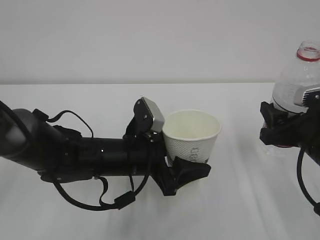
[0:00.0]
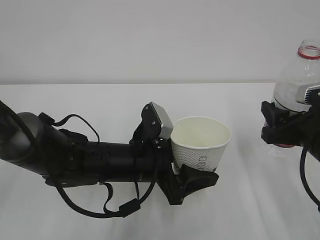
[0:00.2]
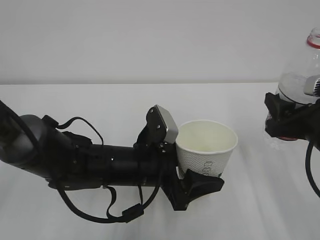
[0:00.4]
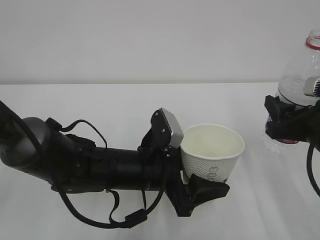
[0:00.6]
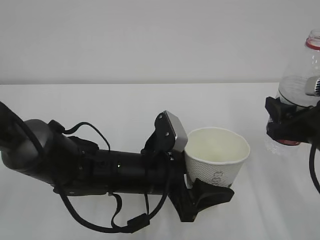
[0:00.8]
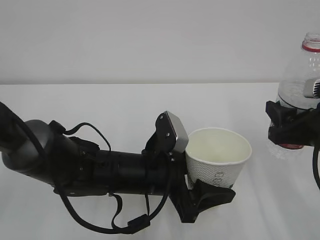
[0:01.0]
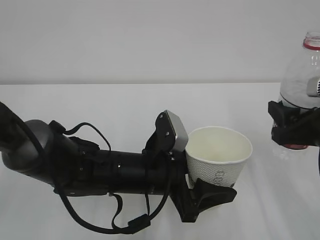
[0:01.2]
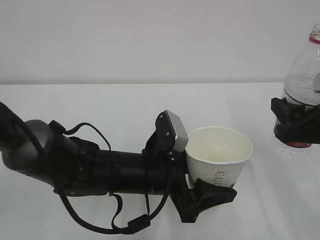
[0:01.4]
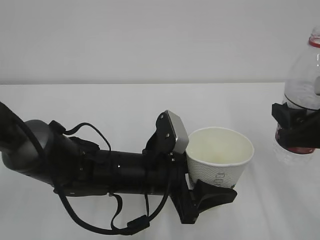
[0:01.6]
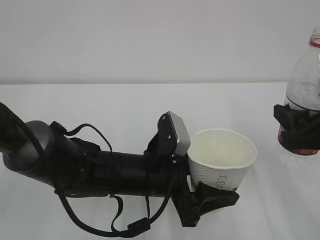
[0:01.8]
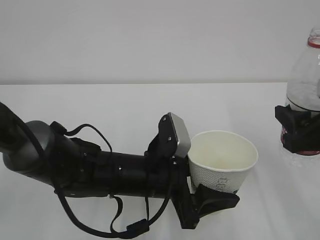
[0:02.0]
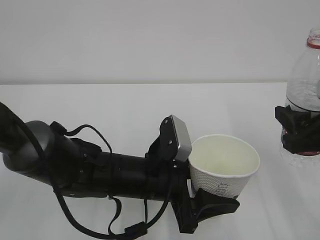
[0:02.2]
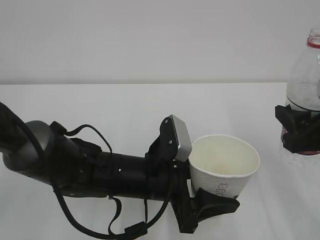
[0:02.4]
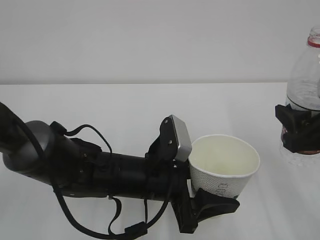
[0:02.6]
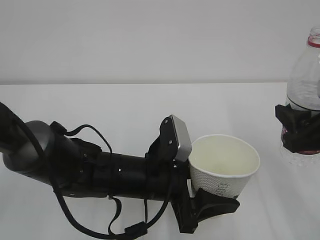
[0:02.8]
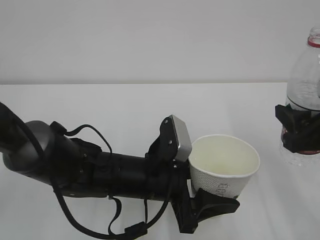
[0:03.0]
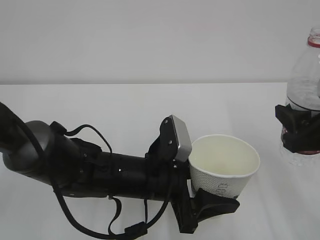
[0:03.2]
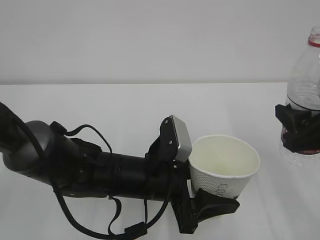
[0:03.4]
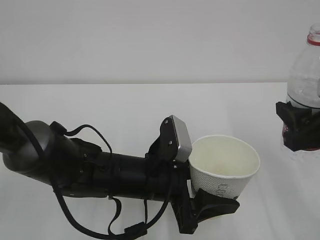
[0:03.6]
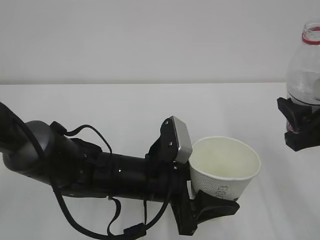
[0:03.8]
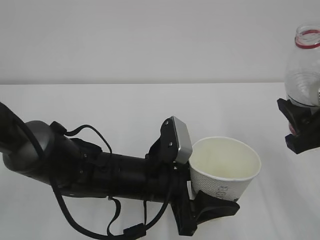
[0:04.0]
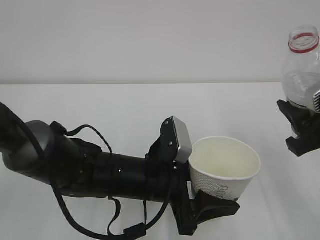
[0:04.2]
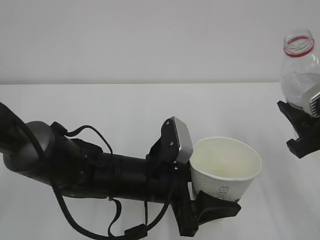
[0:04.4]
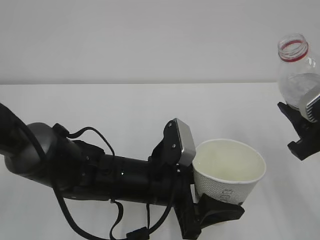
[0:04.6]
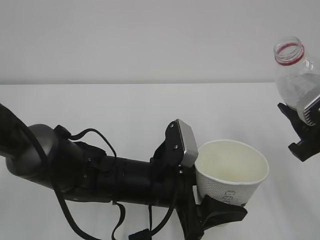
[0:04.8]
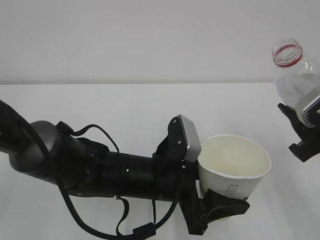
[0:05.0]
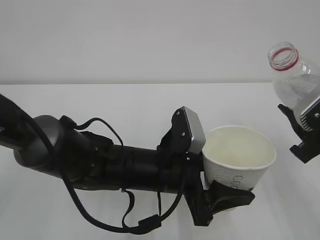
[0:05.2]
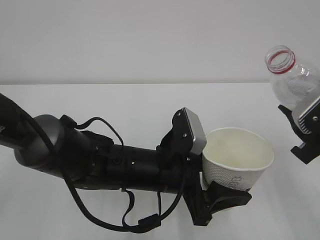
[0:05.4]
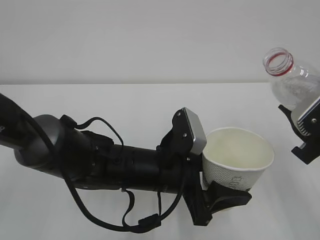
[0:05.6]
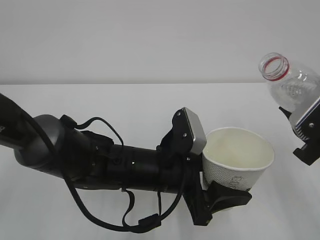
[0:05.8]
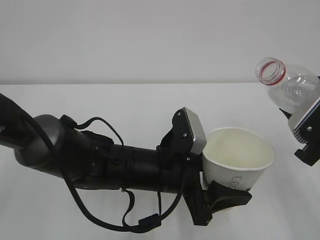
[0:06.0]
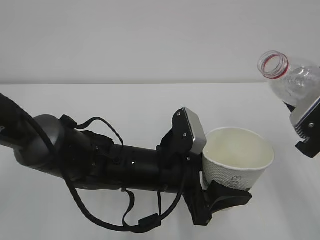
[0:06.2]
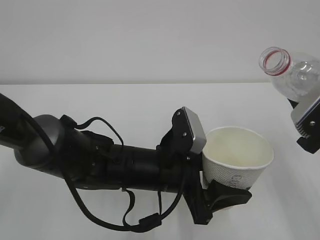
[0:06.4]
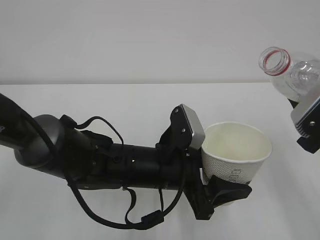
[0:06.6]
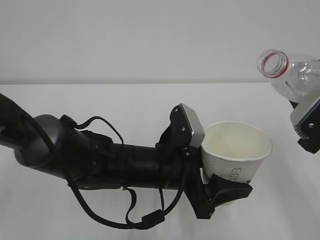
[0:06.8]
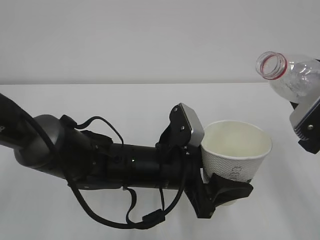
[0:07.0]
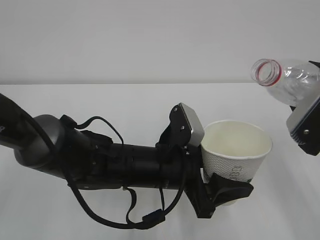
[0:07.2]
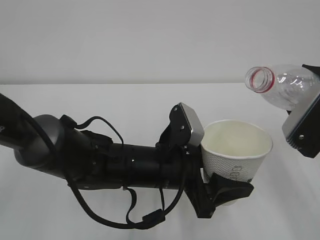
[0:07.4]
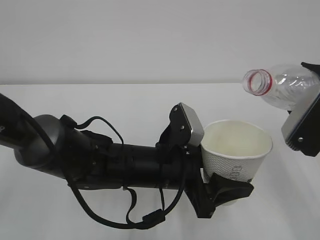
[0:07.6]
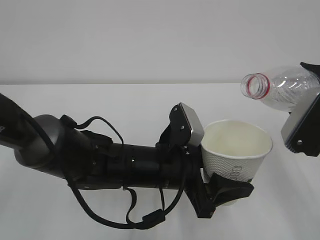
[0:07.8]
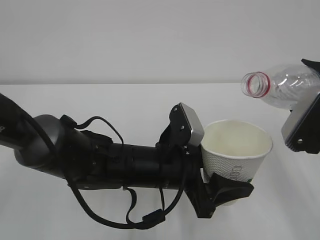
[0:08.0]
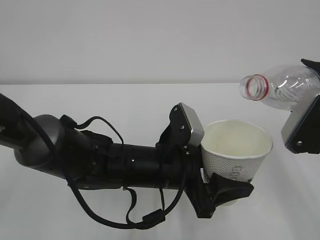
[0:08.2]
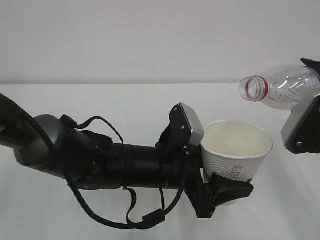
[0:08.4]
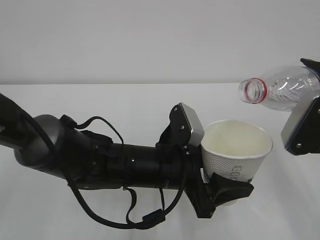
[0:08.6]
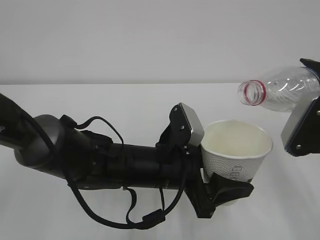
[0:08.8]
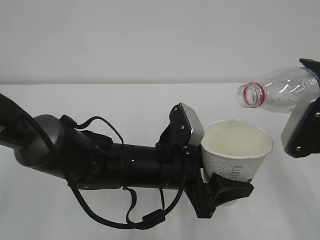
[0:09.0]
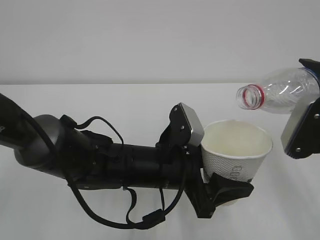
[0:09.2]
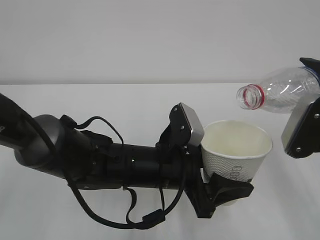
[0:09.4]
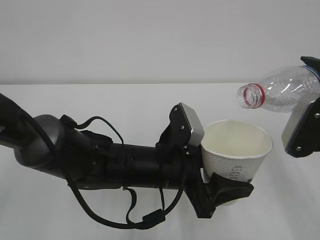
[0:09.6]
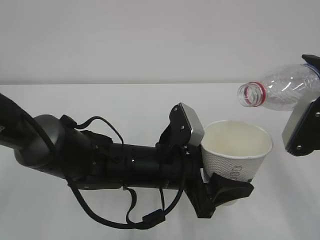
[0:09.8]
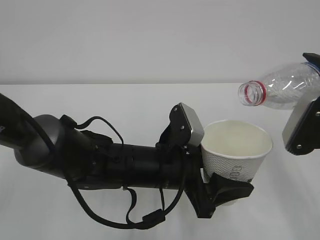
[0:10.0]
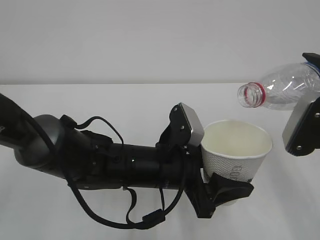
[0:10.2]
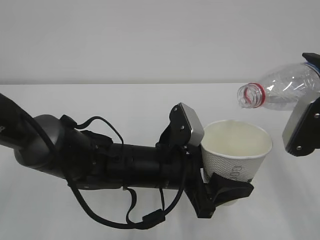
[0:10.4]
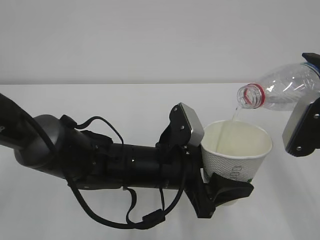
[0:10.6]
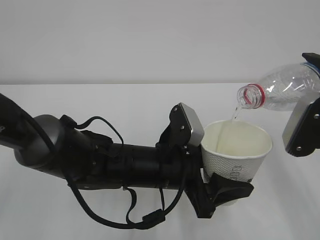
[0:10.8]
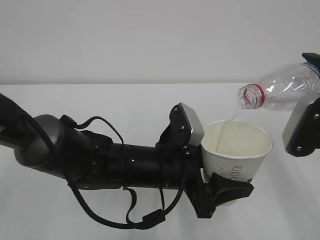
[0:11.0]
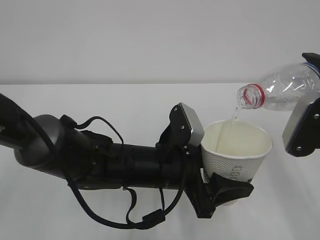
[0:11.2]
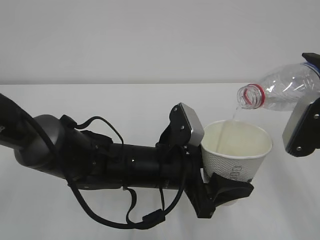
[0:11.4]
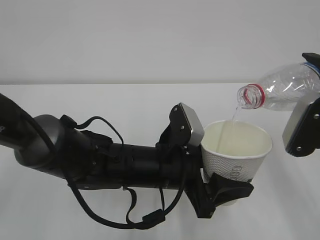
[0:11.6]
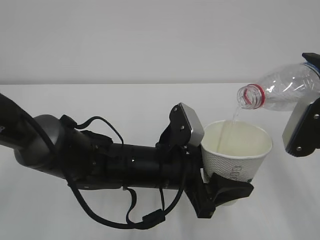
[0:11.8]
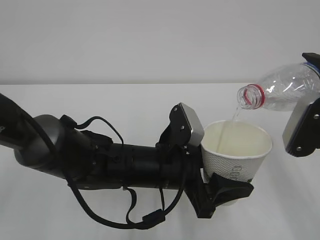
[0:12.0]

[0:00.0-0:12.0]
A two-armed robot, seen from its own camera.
0:00.0 to 0:01.6: The right gripper changes place by roughly 5 cm.
0:01.6 to 0:03.0: The two grippers keep their place.
0:06.0 to 0:07.6: There are only small adjustments of the grippers.
0:07.6 to 0:09.0: The grippers stay close to where they were, moving slightly.
0:09.0 to 0:10.4: Neither gripper changes place.
0:10.4 to 0:12.0: Neither gripper changes place.

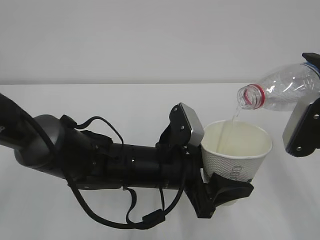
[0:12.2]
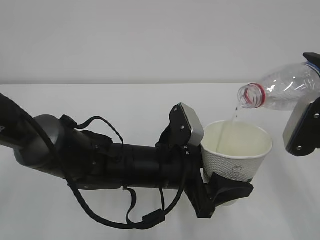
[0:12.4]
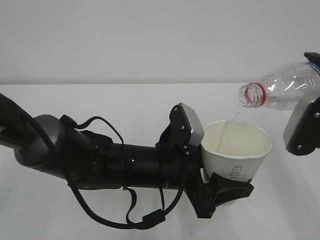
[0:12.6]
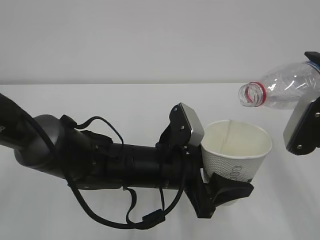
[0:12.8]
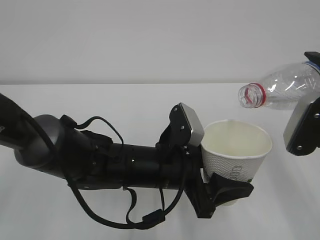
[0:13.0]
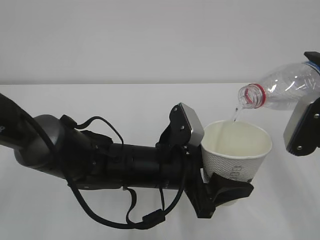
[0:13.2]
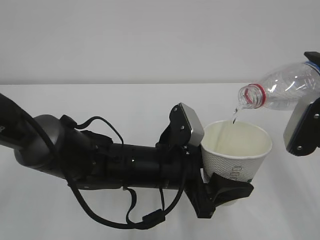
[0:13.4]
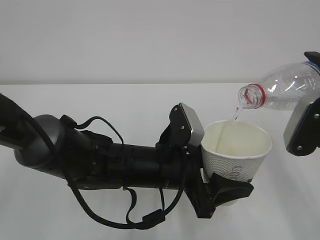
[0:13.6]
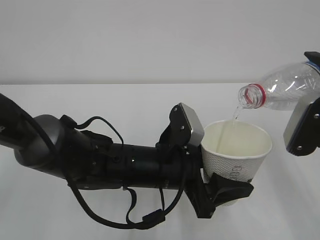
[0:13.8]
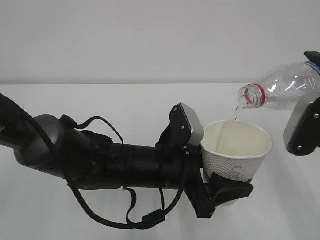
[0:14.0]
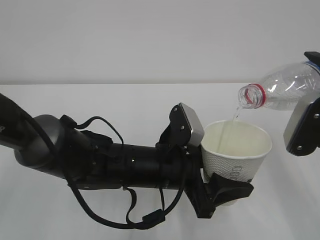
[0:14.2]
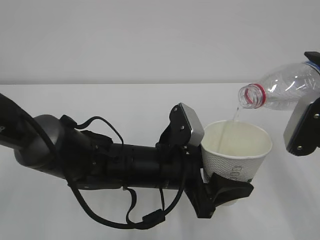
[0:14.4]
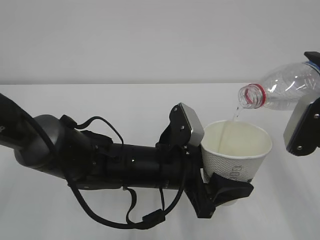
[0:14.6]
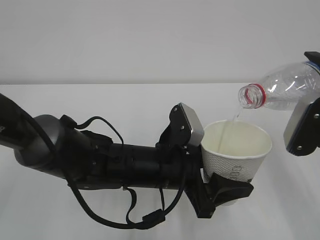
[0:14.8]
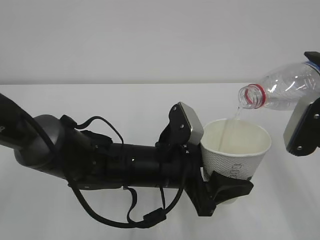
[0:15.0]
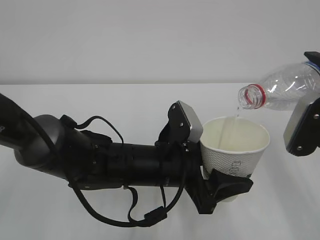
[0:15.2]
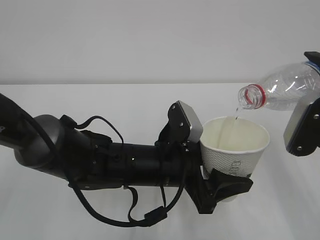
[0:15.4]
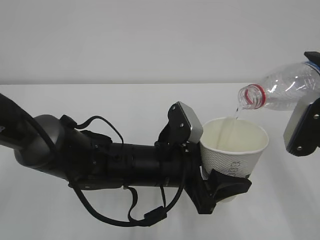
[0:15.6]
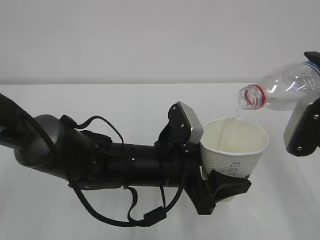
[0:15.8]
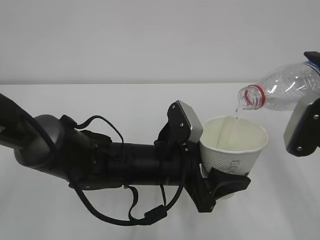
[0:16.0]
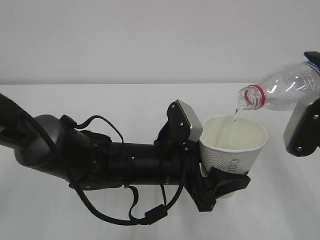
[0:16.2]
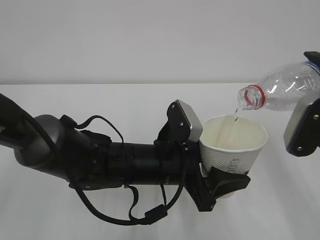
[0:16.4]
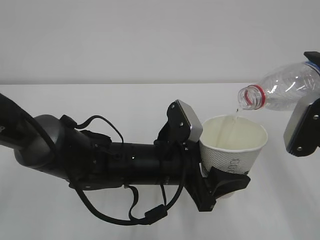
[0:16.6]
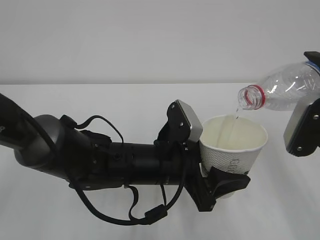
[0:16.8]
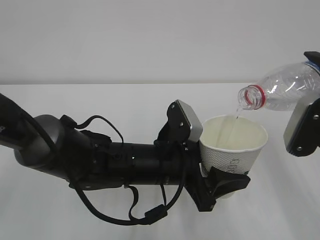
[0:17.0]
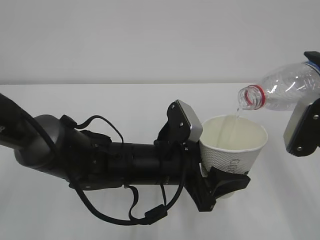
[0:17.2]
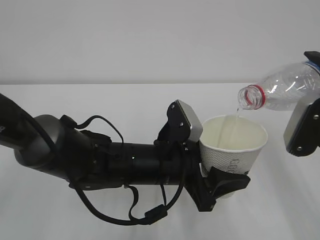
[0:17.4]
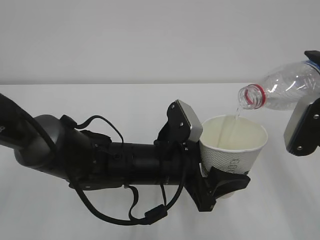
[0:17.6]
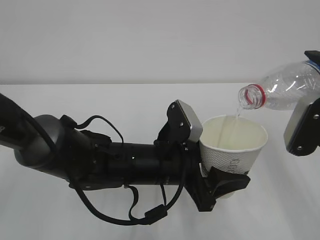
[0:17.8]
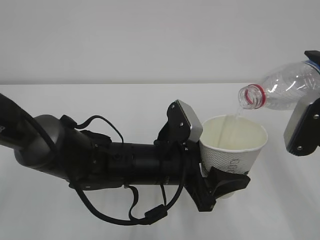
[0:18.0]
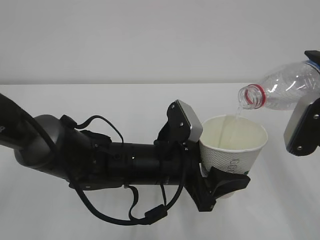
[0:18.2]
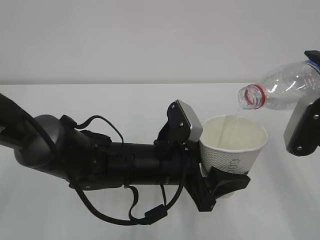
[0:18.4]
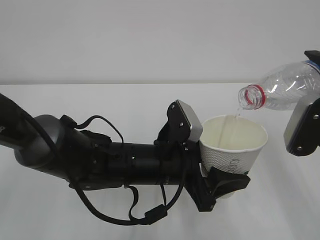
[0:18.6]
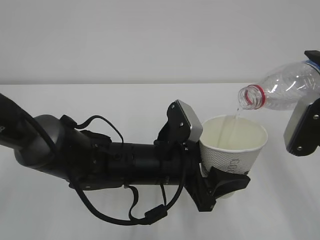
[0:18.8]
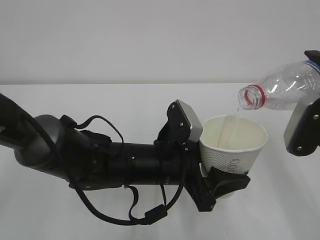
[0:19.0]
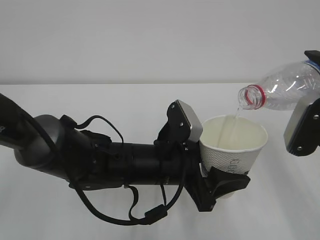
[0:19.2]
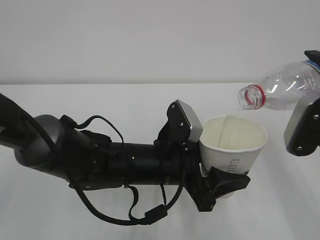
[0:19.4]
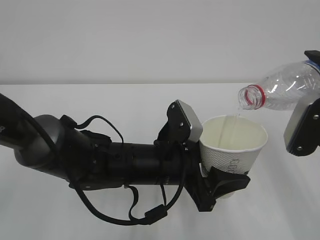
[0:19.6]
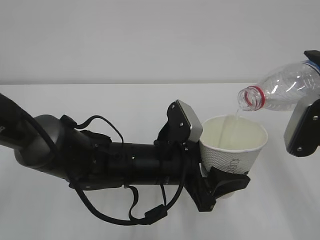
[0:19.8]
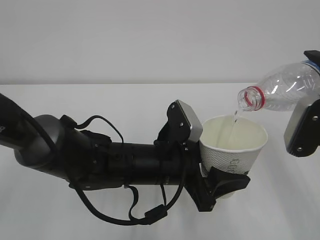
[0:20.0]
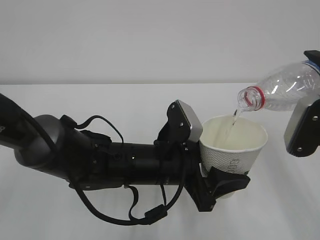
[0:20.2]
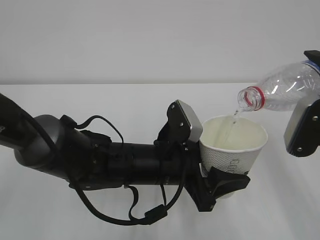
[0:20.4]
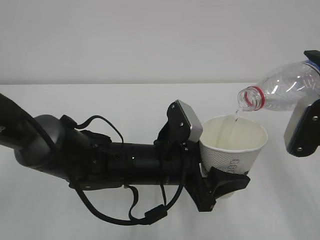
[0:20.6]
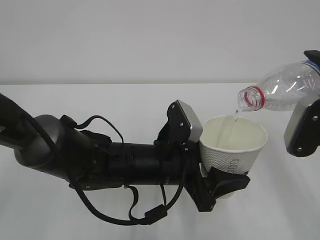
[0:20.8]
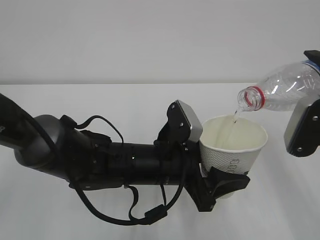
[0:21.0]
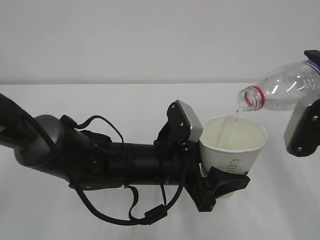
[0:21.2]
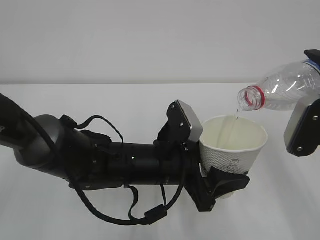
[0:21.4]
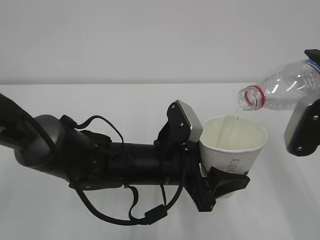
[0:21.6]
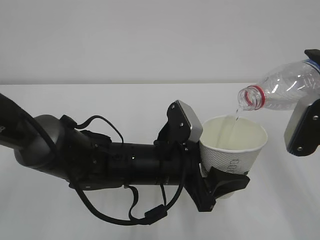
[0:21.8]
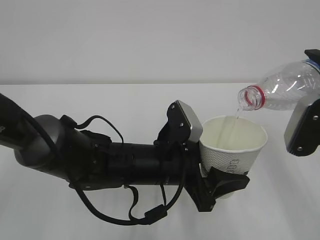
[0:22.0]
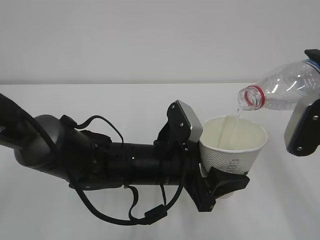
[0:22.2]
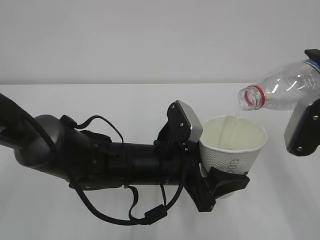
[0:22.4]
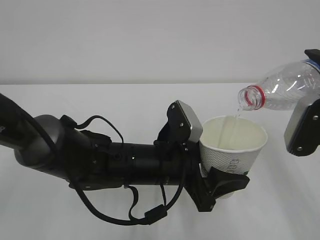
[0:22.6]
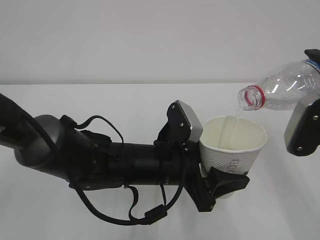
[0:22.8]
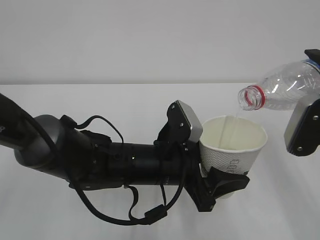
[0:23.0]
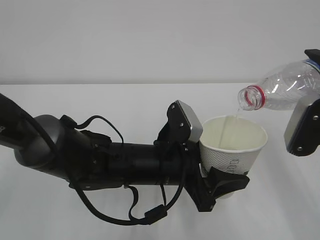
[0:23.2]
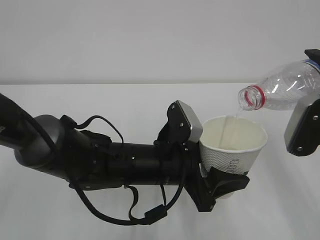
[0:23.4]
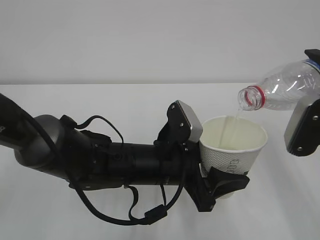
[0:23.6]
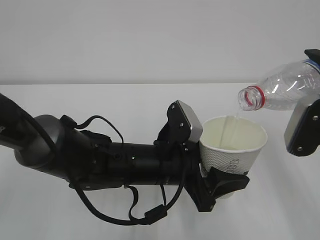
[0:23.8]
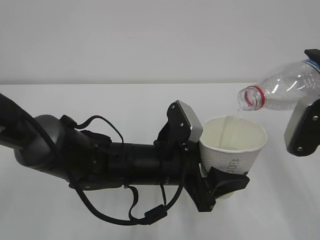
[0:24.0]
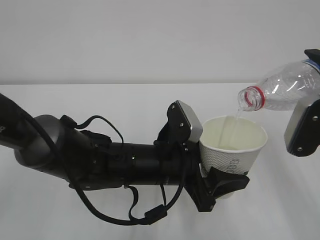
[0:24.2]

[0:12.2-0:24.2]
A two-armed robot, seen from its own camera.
0:12.2 to 0:24.2: Both grippers stay put.
